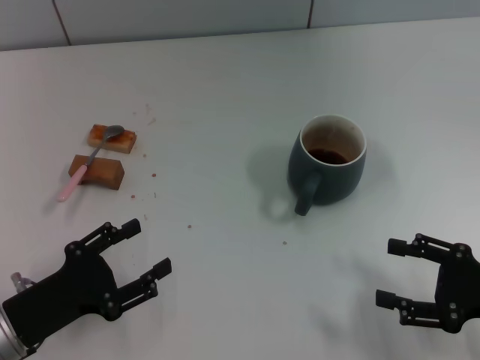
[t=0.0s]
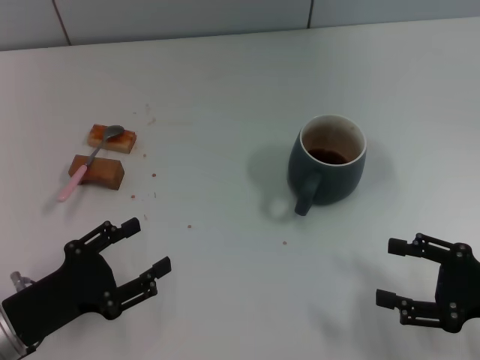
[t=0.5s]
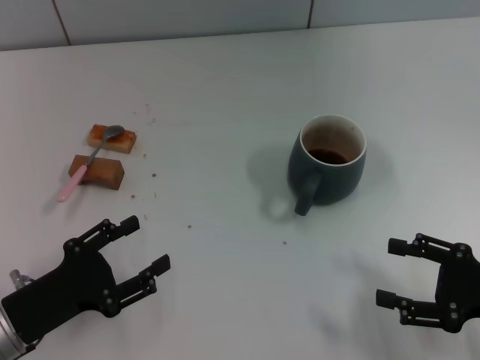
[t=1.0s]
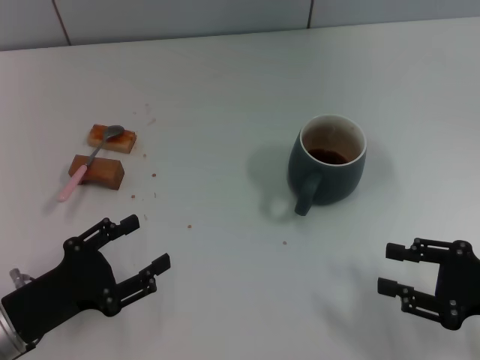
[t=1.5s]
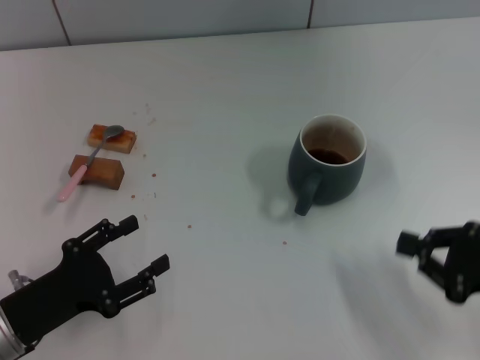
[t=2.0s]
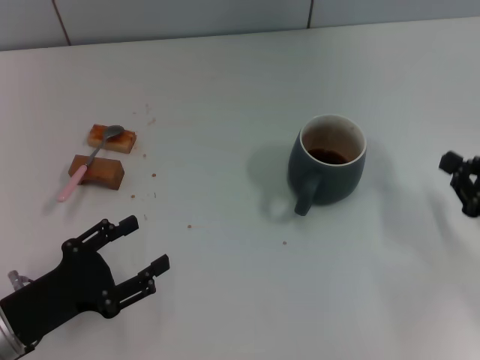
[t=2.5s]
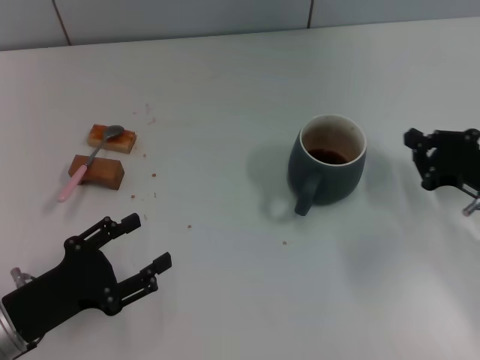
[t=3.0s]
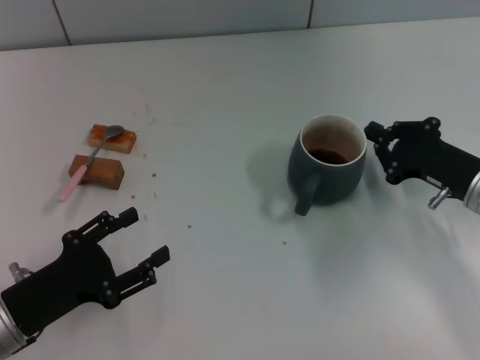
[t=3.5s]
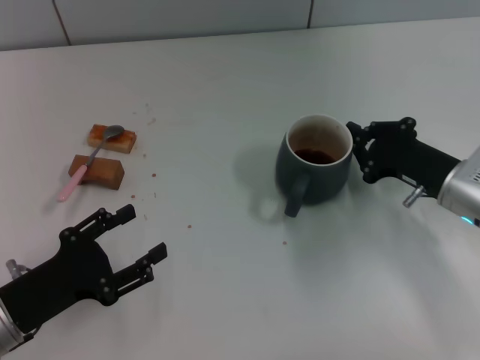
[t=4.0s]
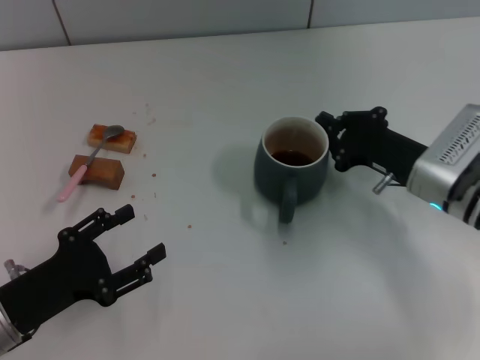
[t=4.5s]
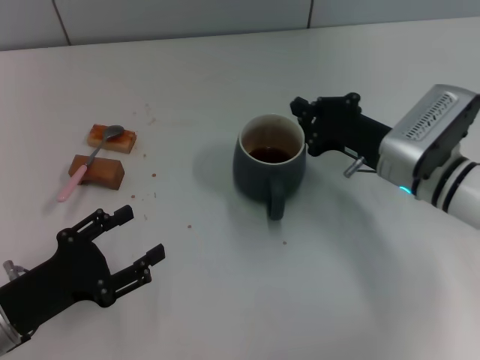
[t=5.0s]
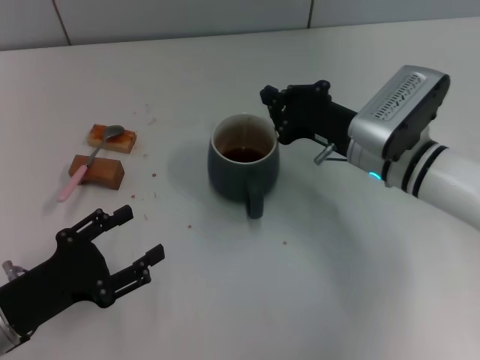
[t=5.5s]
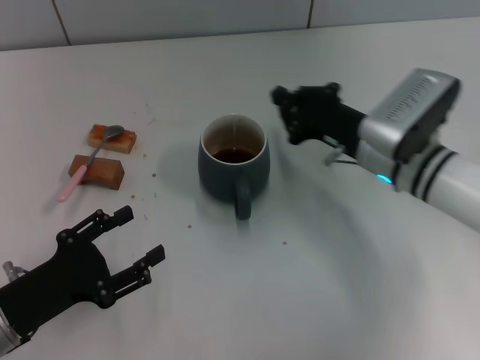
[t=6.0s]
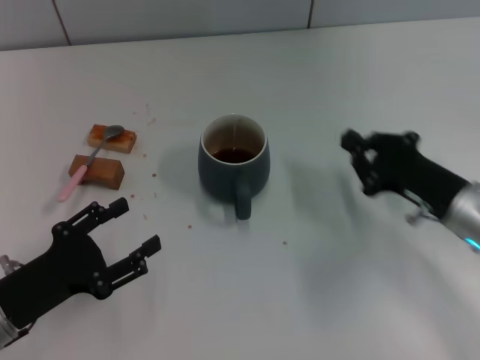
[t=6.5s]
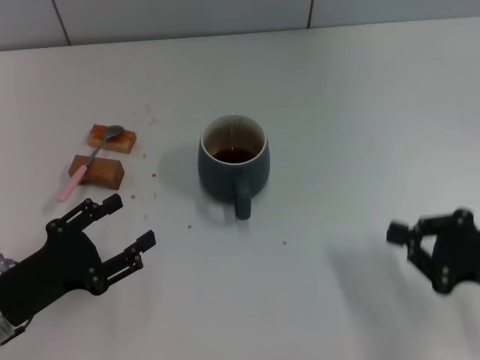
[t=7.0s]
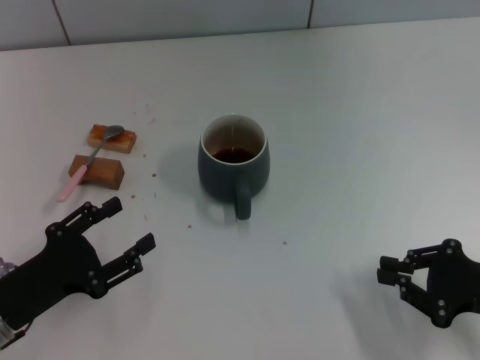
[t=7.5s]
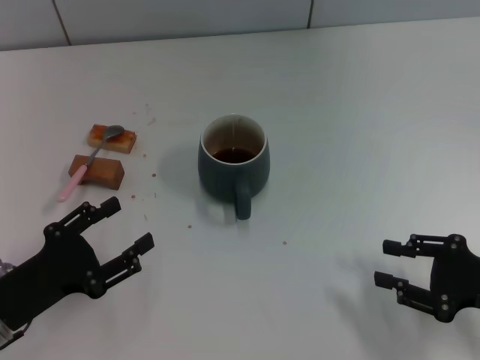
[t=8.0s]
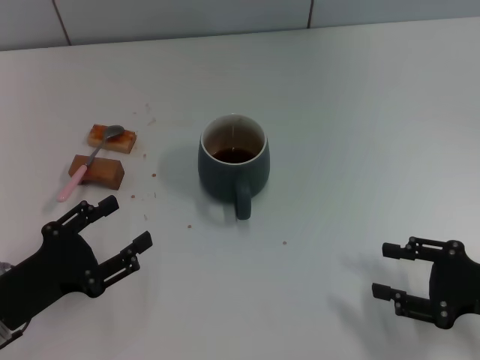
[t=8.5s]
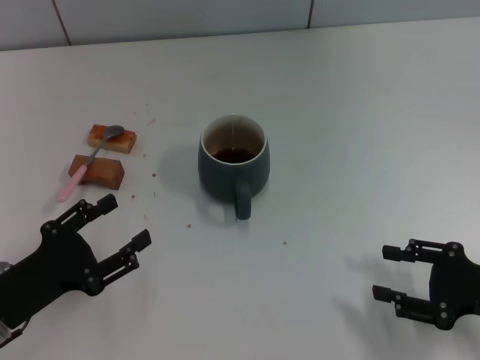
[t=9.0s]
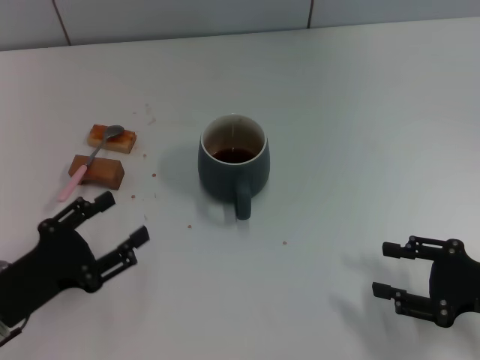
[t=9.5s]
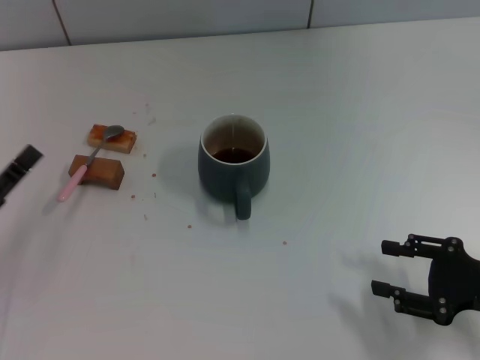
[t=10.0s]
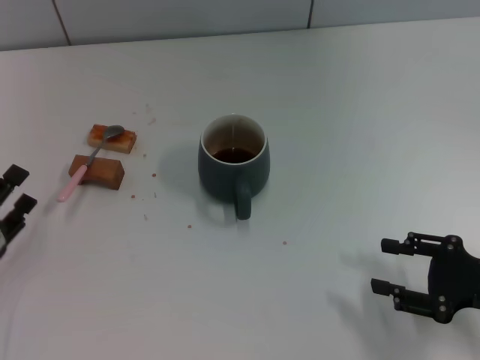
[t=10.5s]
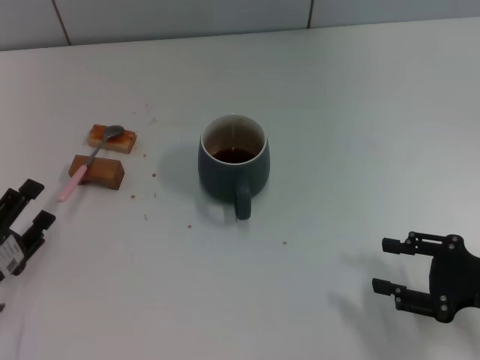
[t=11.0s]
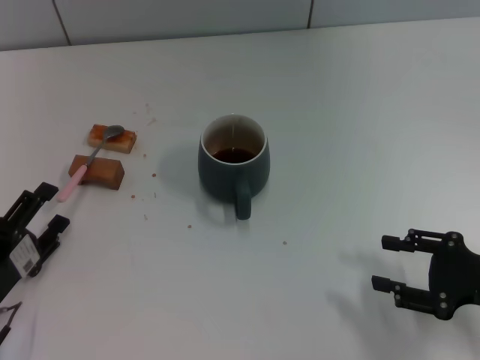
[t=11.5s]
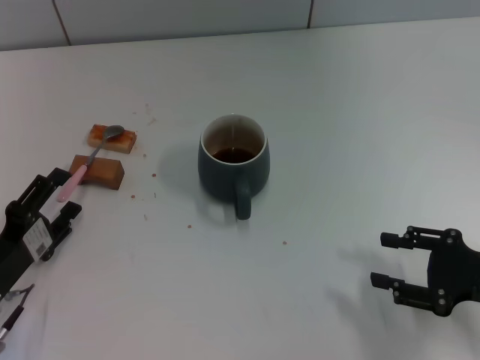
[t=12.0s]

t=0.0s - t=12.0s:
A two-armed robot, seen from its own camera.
Task of the whole recording: Move the grey cup to the center, lift the pink spoon, stir it three times in the cup, and put the spoon into the cup.
Step, t=0.0s - t=6.0s: Move the cup with coffee to the center of view with the right gripper.
t=0.0s - t=2.0s: The right gripper closes.
t=2.0s - t=4.0s: The right gripper travels forward and to the left by about 15 cm.
t=4.0s - t=6.0s: The right gripper heads to the left, covering roughly 10 cm.
t=6.0s - t=8.0s: The right gripper is displaced backward and to the right by approximately 20 cm.
t=8.0s - t=10.0s: The right gripper opens its fingers.

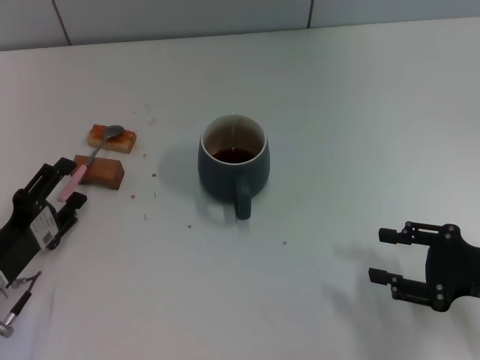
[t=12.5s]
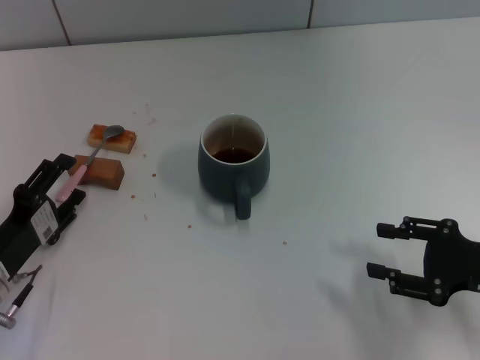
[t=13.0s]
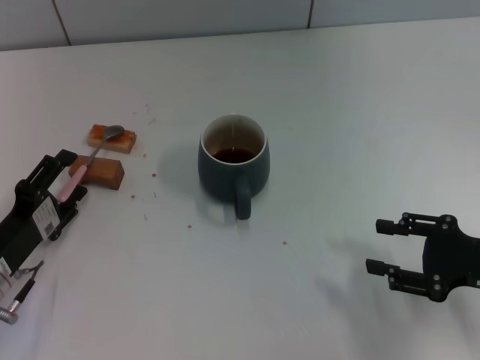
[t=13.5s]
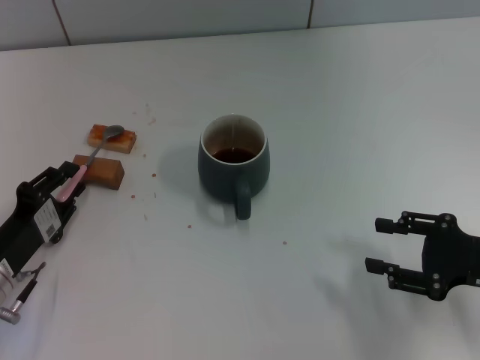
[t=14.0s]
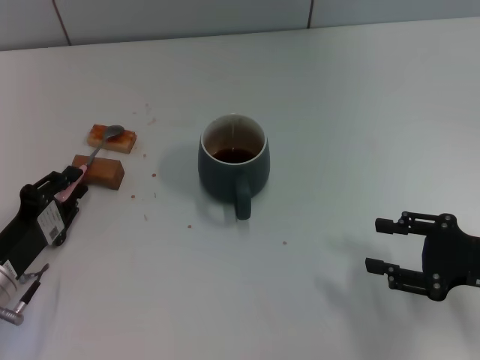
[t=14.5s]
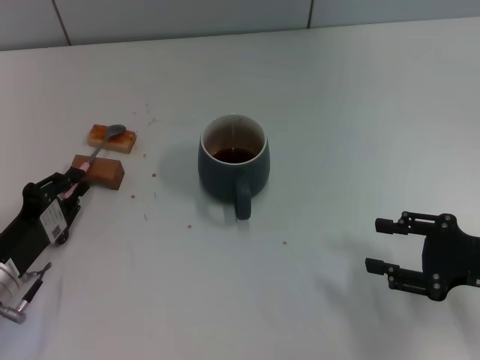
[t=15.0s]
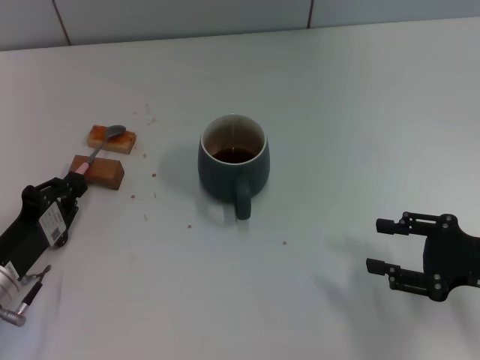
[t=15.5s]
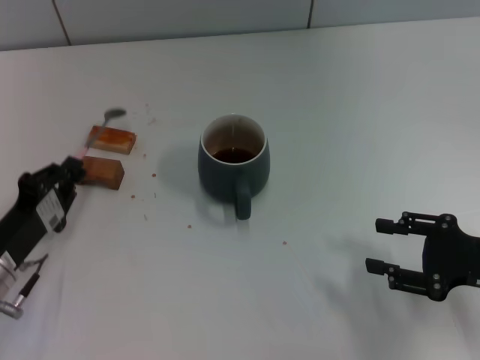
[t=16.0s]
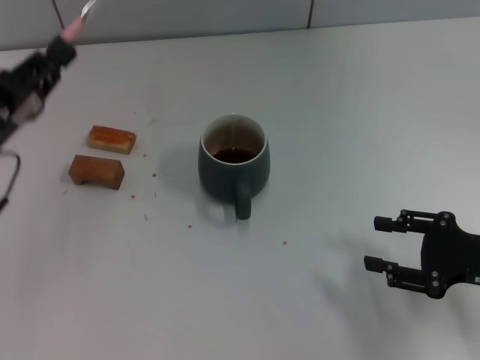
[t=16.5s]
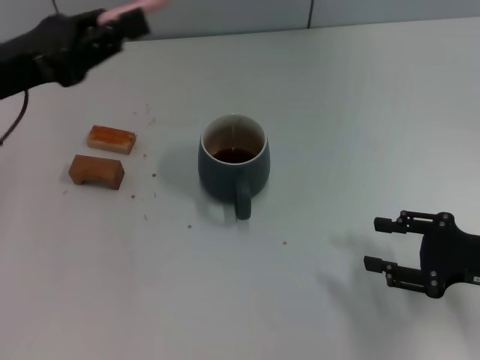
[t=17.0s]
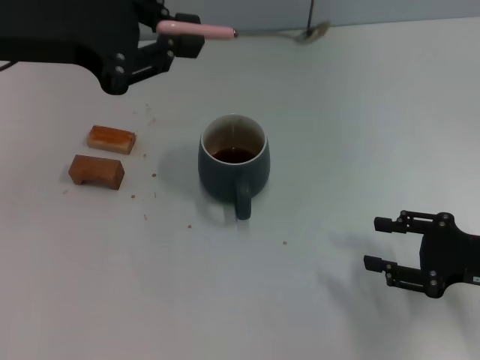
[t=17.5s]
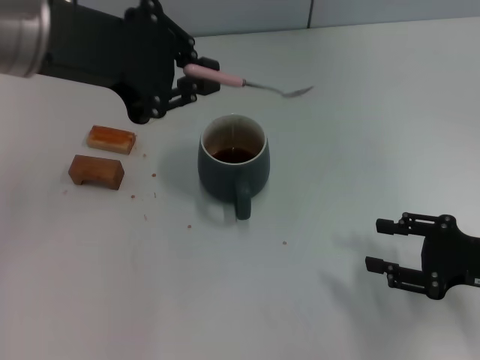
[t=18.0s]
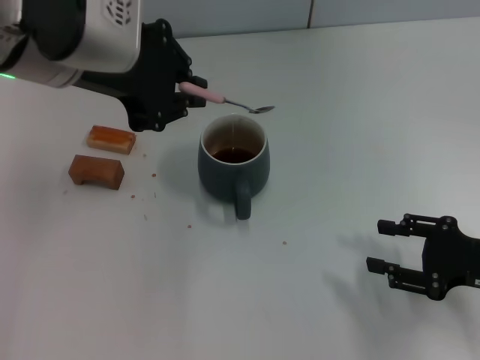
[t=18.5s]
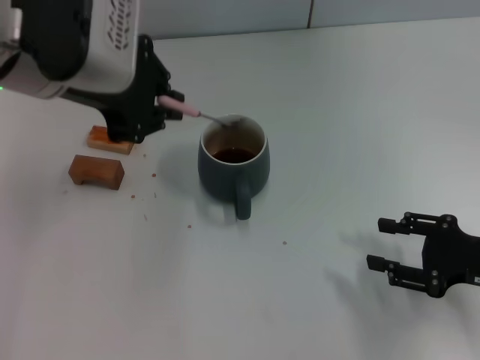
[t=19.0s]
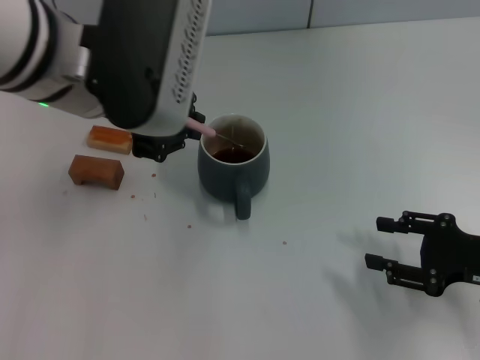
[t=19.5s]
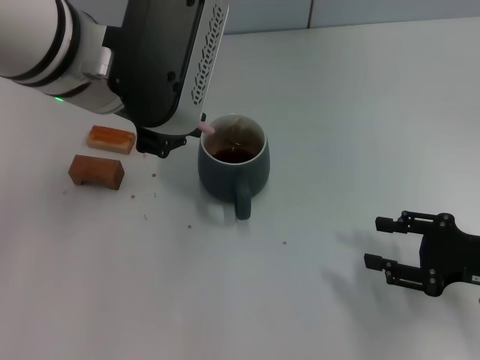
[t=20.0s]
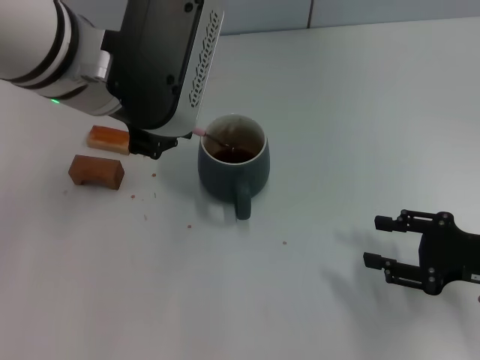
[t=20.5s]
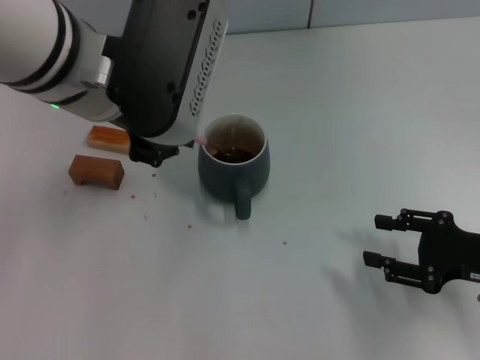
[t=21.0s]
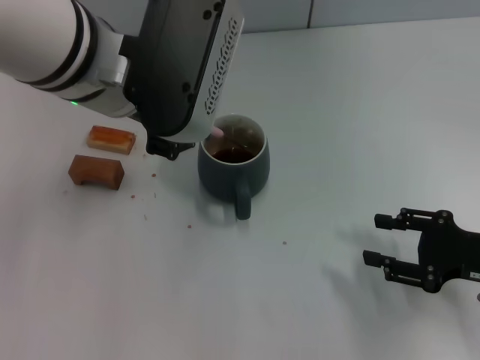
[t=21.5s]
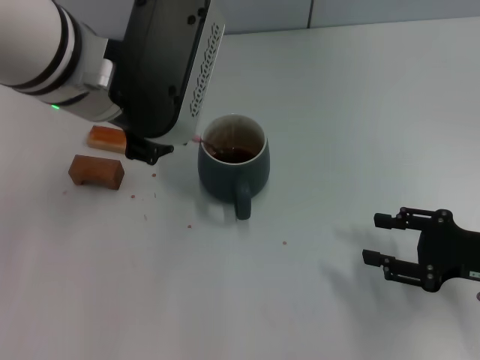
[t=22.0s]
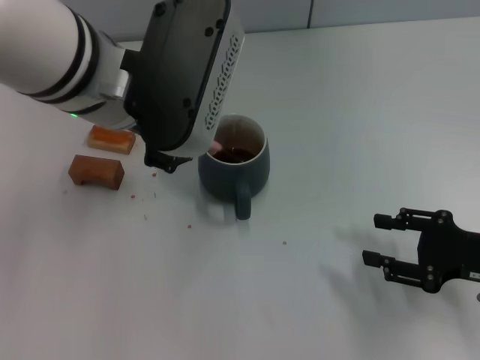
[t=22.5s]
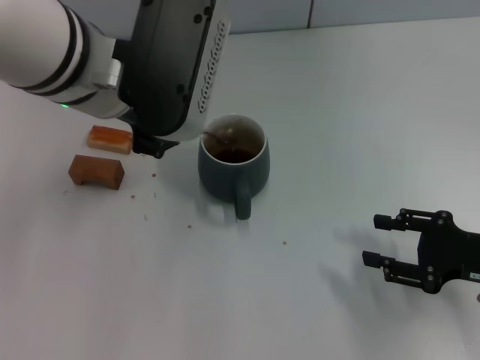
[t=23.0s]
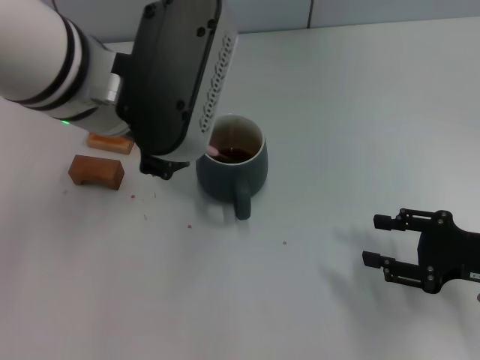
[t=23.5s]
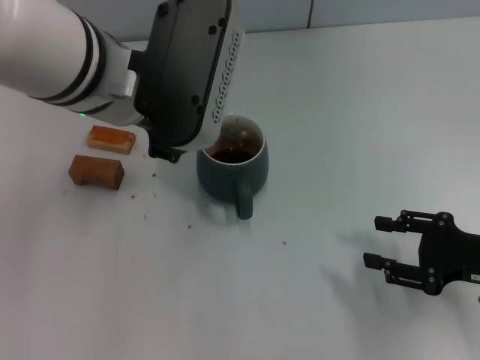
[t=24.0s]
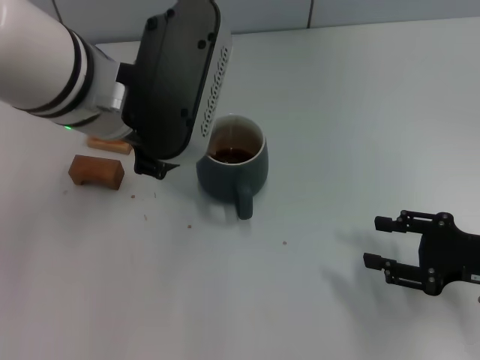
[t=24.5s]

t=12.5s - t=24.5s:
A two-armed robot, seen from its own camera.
Task of the whole recording: Move the grey cup to the center, lift the pink spoon, stir it three times in the cup, and put the spoon into the cup.
Step, t=12.5s - t=16.0s: Pick up the spoon with the left gripper.
t=12.5s - t=14.5s: The left gripper closes.
t=14.5s - t=16.5s: The left gripper shifts some 10 cm upward and forward.
t=16.5s - t=18.5s: The left gripper goes some 20 cm upward and to the right.
t=18.5s - t=20.5s: The grippers stay close to where they were, moving slightly.
t=20.5s - t=22.5s: Both grippers stay about where they are.
t=22.5s - t=24.5s: The grippers stay close to where they were, moving slightly.

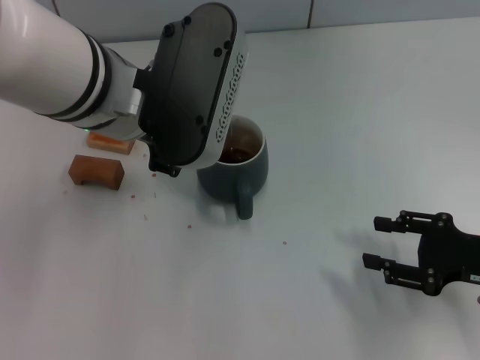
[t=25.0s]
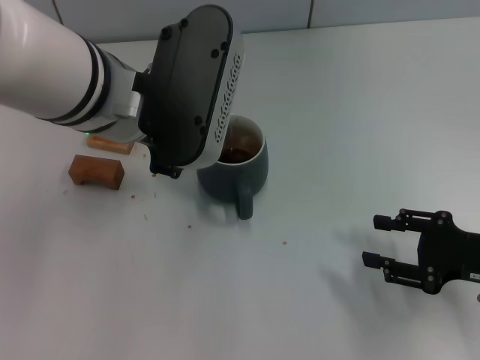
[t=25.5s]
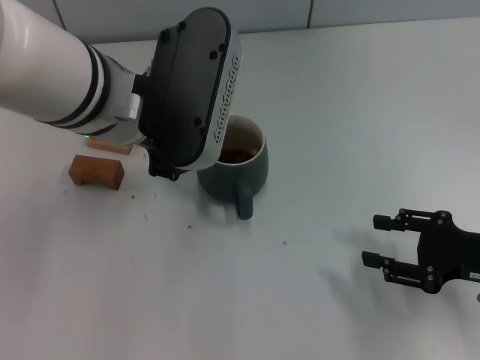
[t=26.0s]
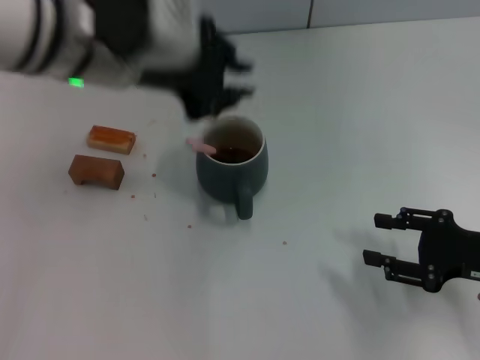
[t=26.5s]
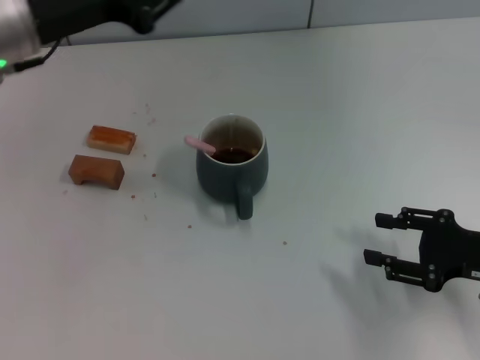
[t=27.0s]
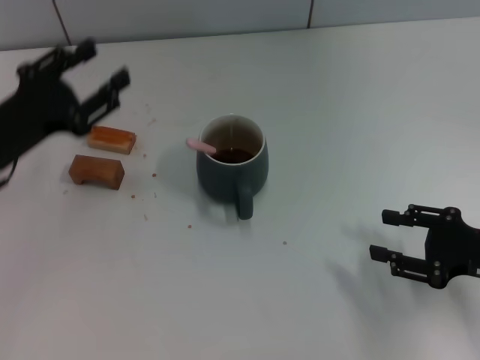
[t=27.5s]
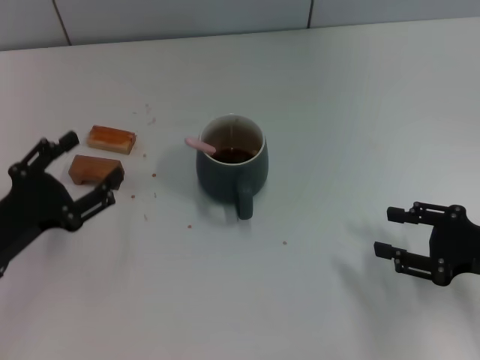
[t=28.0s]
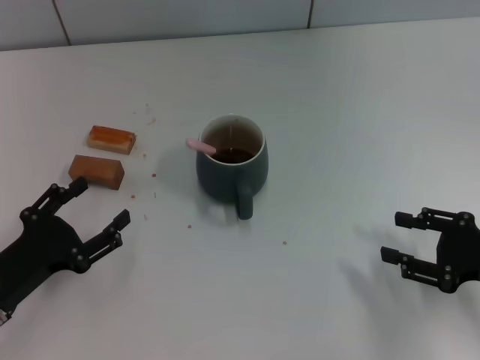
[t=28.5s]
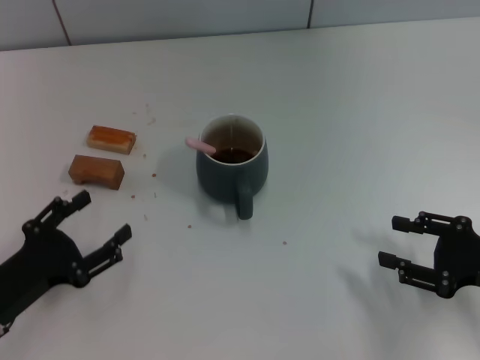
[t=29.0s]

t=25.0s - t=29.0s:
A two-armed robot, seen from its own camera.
Task of the whole recording: Move the grey cup to the center, lift the pink spoon, stir it three times in the cup, and put the spoon into the cup.
t=25.0s - t=27.0s: The left gripper goes some 10 cm to the left.
t=27.0s - t=29.0s: The left gripper heads downward and backward, covering some 25 cm, and opens.
